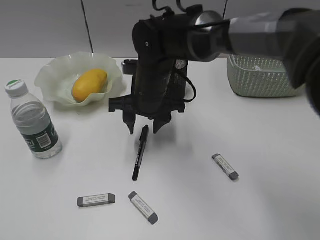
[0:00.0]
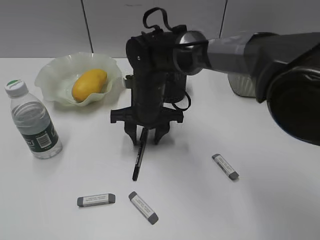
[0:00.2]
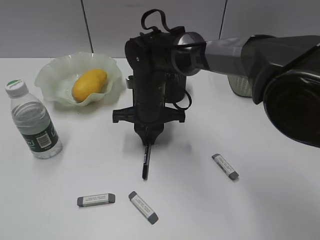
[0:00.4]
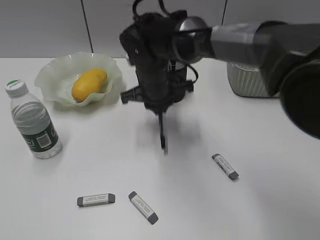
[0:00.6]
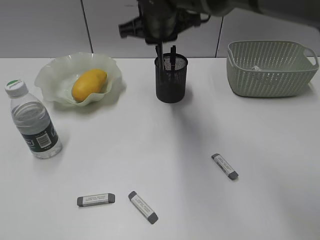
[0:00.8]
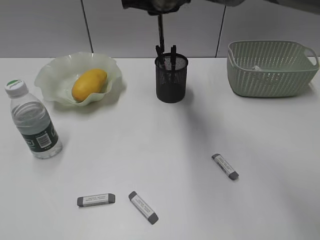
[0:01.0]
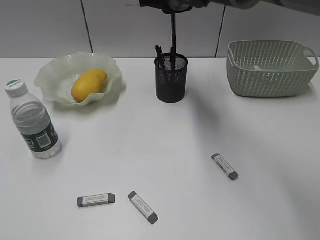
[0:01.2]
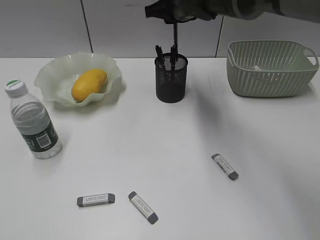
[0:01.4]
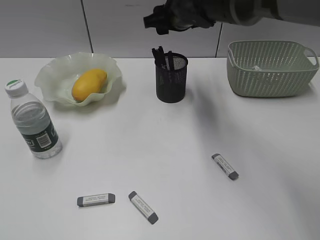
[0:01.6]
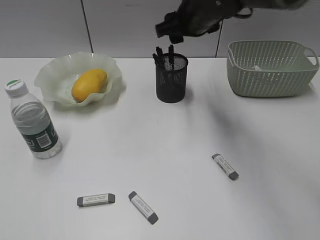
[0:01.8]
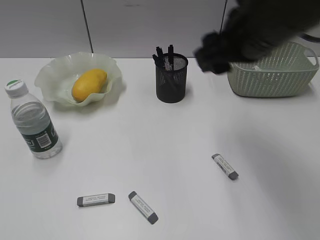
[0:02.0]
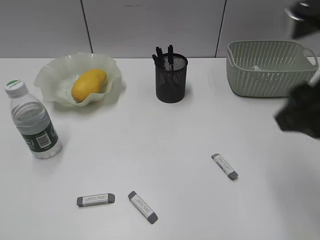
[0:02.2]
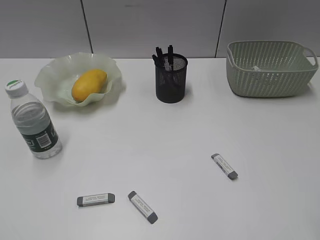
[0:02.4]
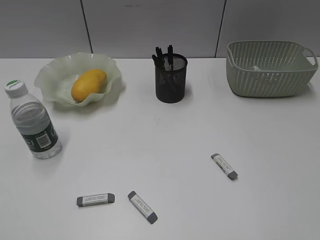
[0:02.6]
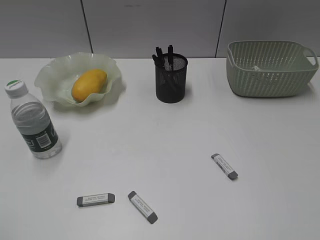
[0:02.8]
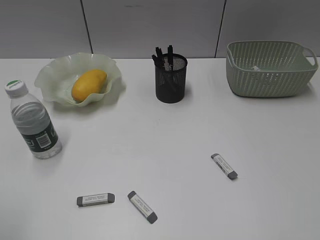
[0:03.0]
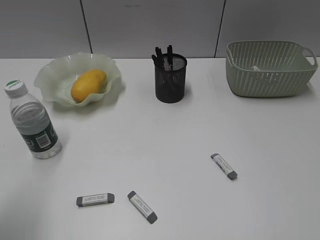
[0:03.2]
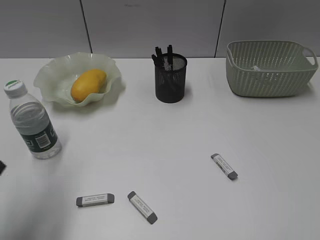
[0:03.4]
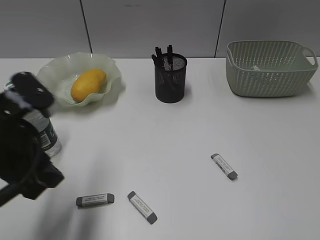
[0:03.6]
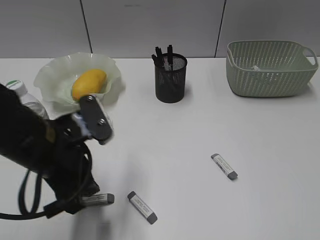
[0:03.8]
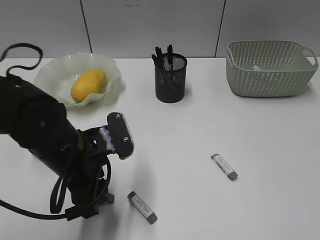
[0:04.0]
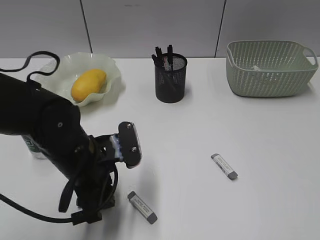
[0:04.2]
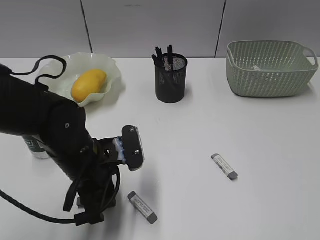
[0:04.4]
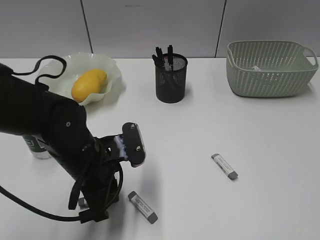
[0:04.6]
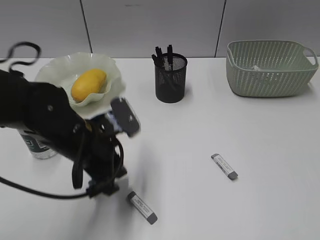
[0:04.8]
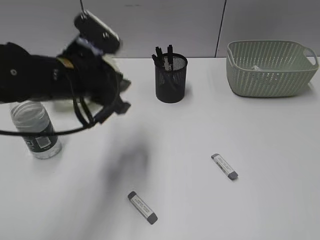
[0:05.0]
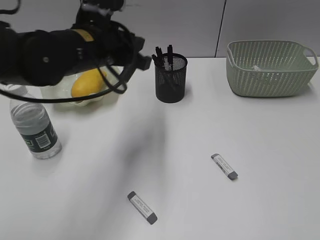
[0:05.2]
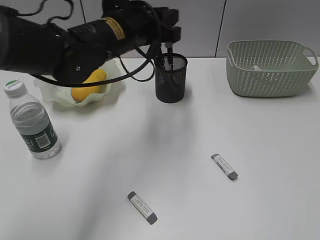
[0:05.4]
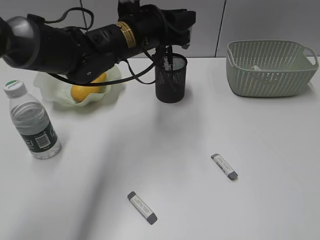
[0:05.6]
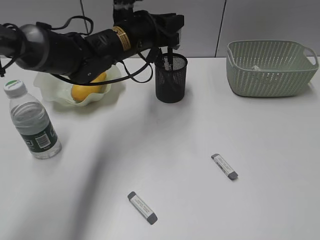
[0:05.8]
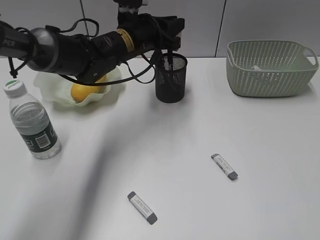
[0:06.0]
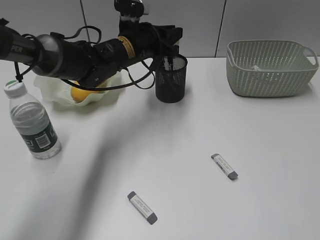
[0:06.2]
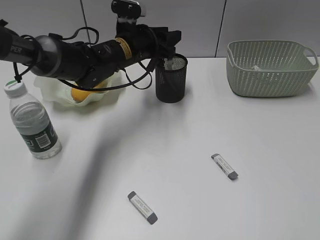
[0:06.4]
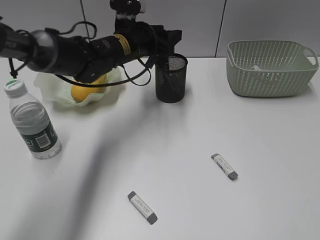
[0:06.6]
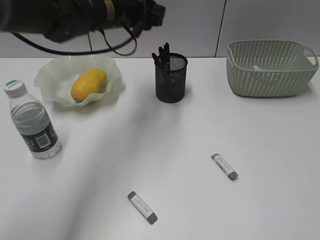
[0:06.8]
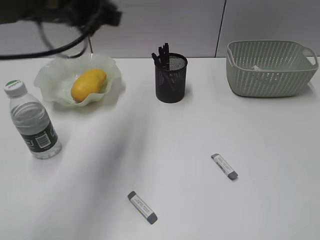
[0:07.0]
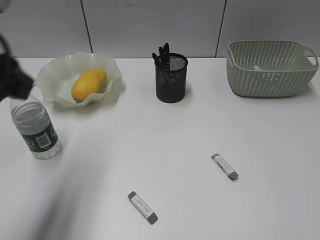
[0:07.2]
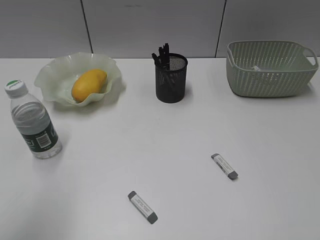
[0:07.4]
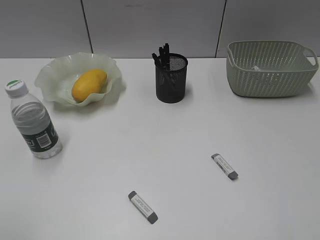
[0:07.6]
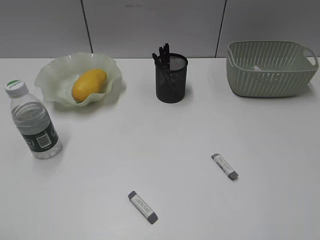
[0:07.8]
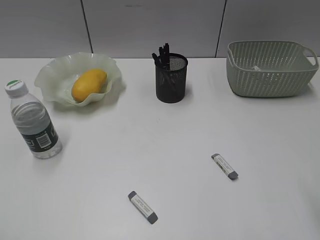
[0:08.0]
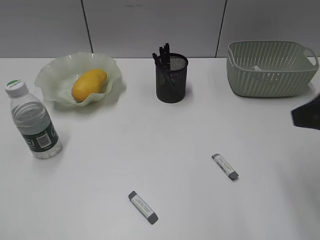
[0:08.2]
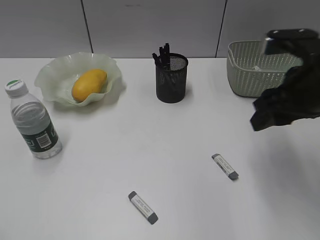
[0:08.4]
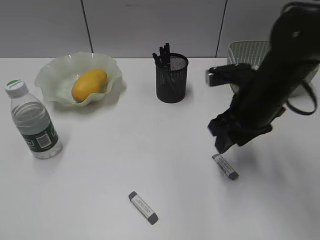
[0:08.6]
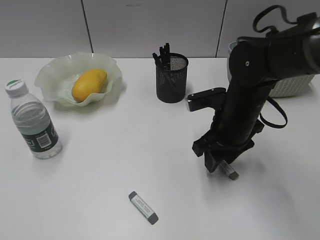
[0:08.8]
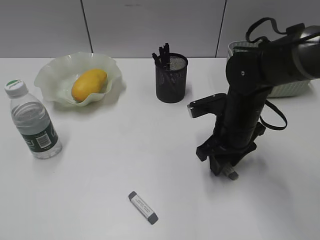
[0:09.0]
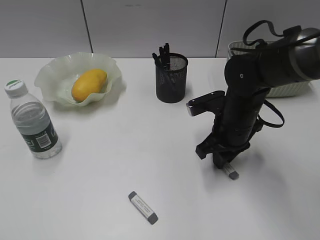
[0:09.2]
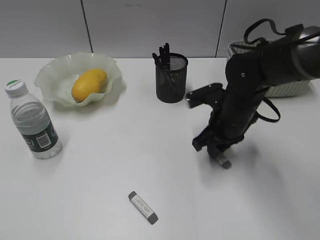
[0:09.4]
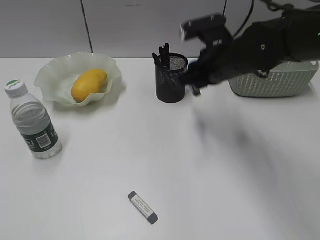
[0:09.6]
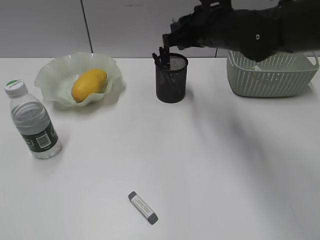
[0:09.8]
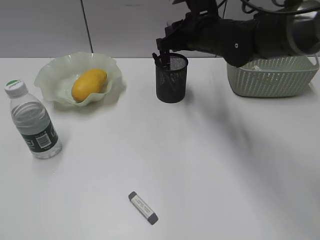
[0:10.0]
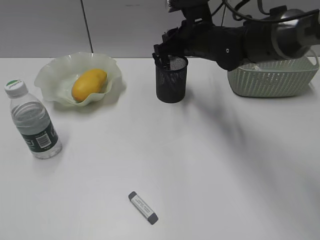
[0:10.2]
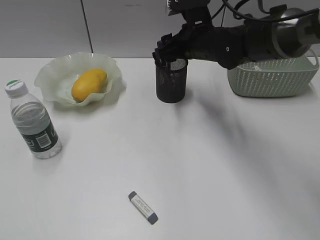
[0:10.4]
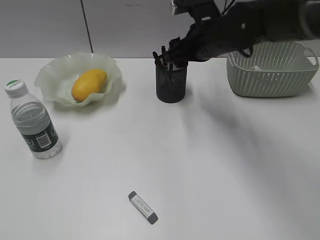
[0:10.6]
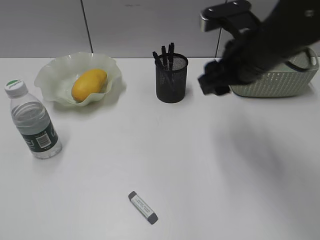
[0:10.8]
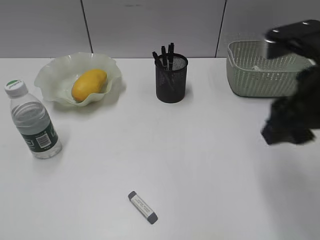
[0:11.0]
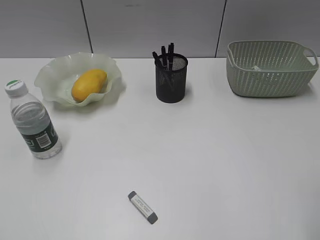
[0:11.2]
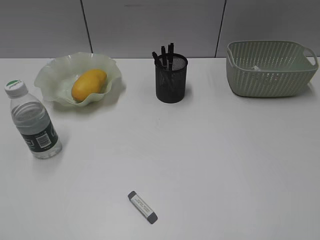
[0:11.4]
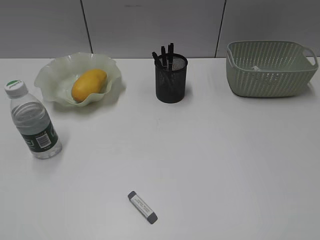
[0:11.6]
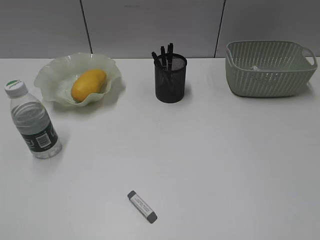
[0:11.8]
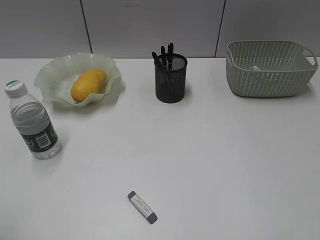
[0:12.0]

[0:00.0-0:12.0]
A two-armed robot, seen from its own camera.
Step, 0:01.8 to 0:04.6: Grasp the eraser with left gripper.
Step, 0:04.8 to 0:06.6: Place the eraser in pen holder with left gripper.
Step, 0:06.8 to 0:09.2: Grasp the eraser with right gripper.
0:00.0 to 0:01.6: The right gripper moves up and down over approximately 15 cm, changing direction 2 times, and closes and opens again.
0:01.6 to 0:03.0: The left gripper shifts roughly 5 cm forward; the right gripper heads backward and to the right, covering some 50 cm.
0:03.0 to 0:04.4: The left gripper is displaced to the right, forward and downward by some 30 cm.
0:04.4 to 0:06.0: The left gripper goes approximately 20 cm forward and upward.
0:06.0 to 0:07.6: The left gripper shifts some 50 cm backward and to the left, and opens, then closes once more.
0:07.6 to 0:09.0: The left gripper shifts by some 5 cm; the right gripper goes approximately 40 cm forward, downward and to the left.
0:09.0 to 0:10.4: The right gripper goes approximately 15 cm forward and upward, and closes, then opens again.
0:10.4 to 0:12.0: The right gripper shifts about 50 cm backward and to the right.

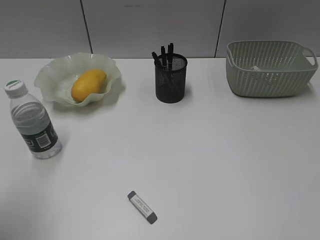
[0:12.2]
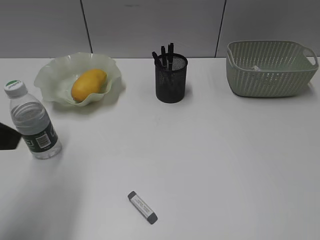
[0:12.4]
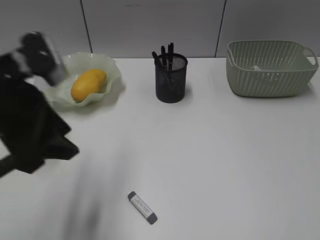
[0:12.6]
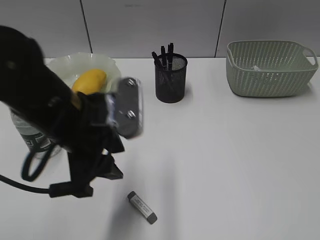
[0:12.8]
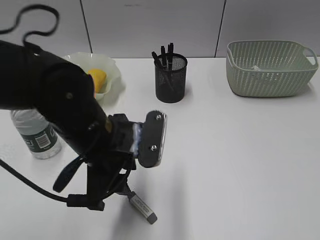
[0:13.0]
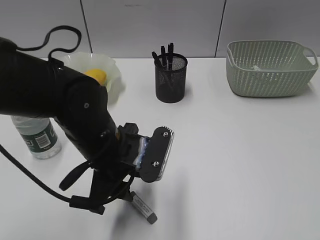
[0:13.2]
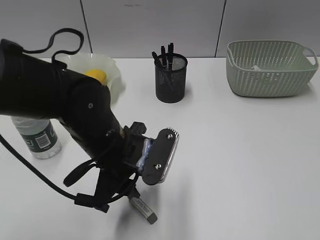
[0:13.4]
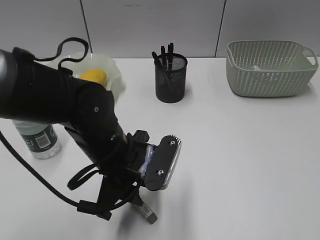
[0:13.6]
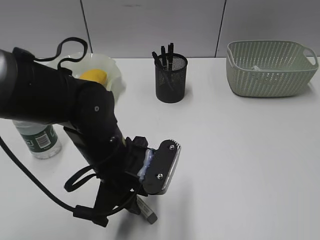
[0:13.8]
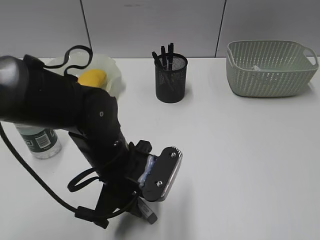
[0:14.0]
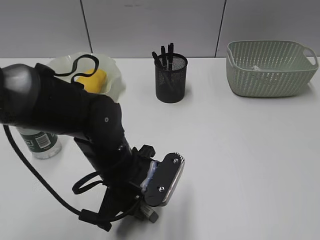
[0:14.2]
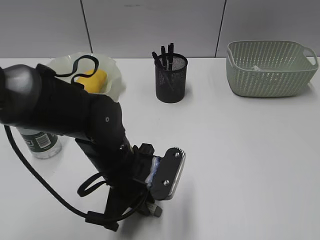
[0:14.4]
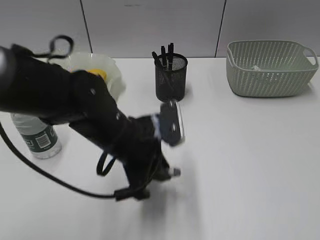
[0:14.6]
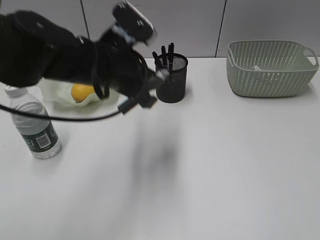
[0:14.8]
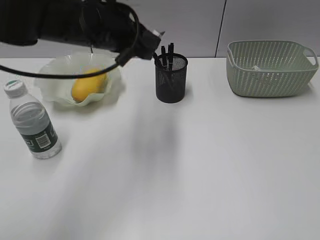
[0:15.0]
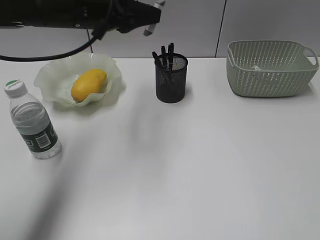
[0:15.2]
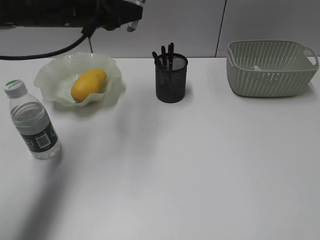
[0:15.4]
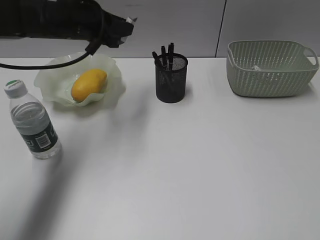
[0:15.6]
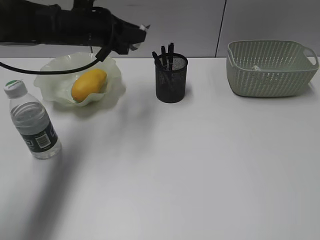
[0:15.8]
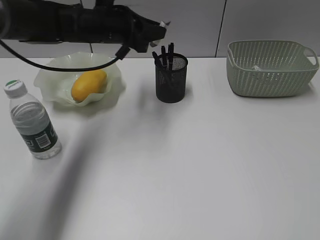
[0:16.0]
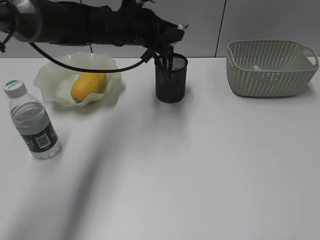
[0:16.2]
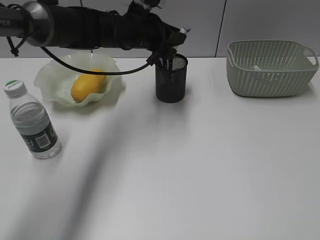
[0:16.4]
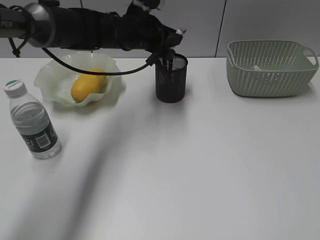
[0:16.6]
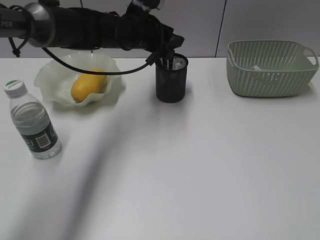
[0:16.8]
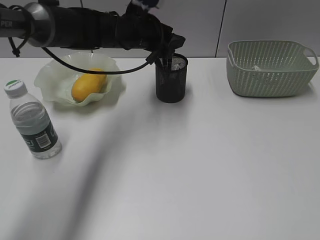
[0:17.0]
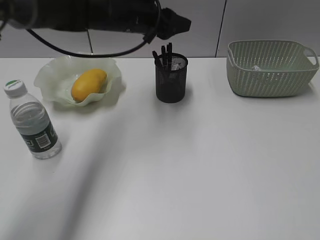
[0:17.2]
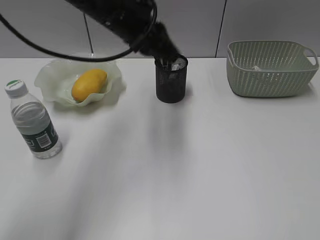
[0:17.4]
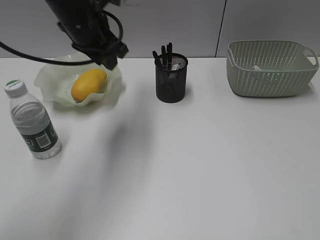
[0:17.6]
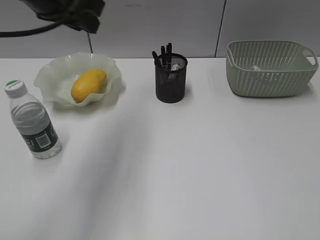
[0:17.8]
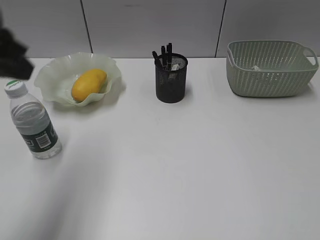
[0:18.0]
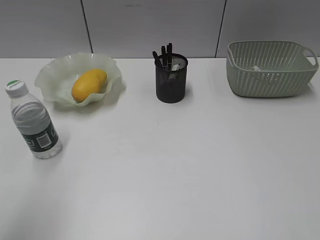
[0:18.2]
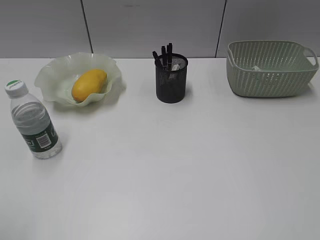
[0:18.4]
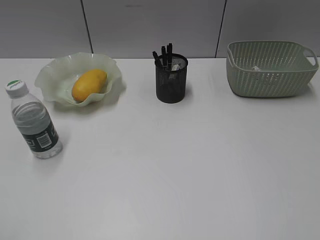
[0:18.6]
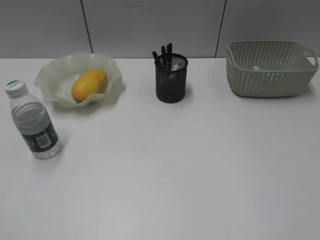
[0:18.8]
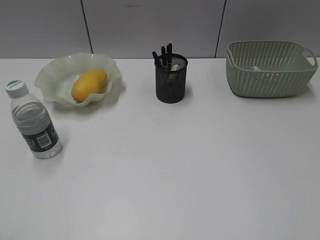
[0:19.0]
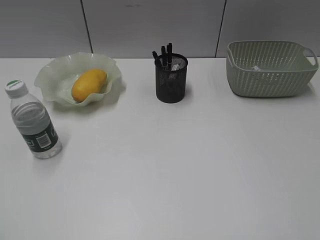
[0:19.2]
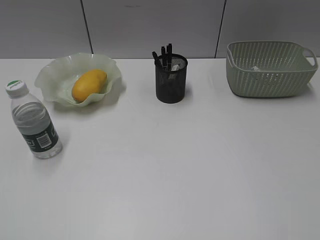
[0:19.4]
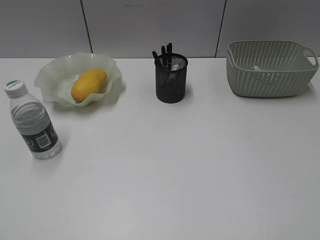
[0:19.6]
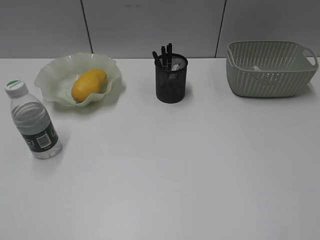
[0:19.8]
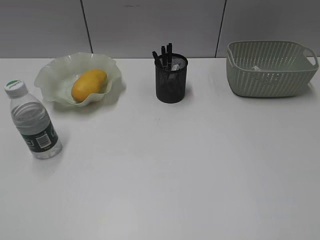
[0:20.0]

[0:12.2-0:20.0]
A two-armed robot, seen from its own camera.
Step, 0:12.2 to 0:14.4: Grasp the eraser with left gripper.
Step, 0:14.6 to 0:16.8: Place the eraser in pen holder with left gripper.
0:12.2 to 0:13.8: The left gripper travels to the right, downward and forward by some 30 cm.
0:13.8 to 0:15.4: The left gripper goes some 25 cm forward, upward and to the left.
0:15.4 to 0:16.8: The left gripper shifts some 15 cm to the right, downward and forward, and opens up.
0:16.8 to 0:18.4: The left gripper travels backward and to the left by some 50 cm.
